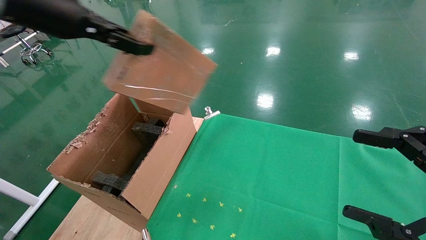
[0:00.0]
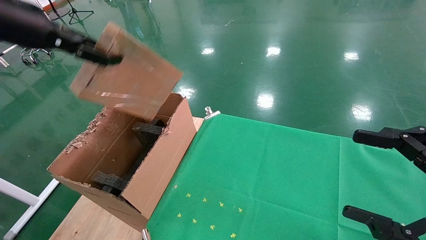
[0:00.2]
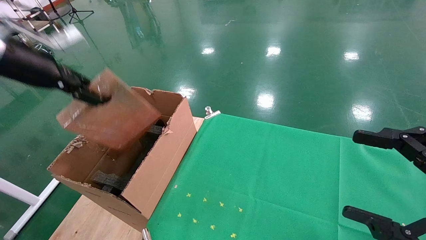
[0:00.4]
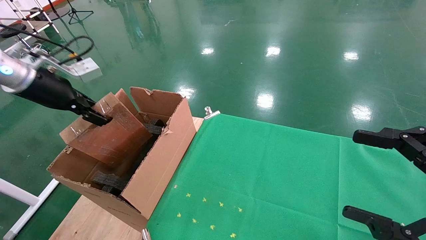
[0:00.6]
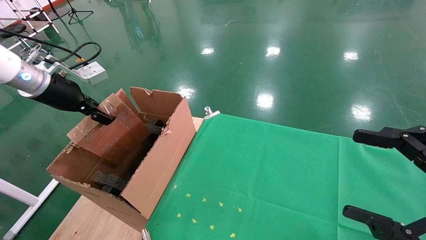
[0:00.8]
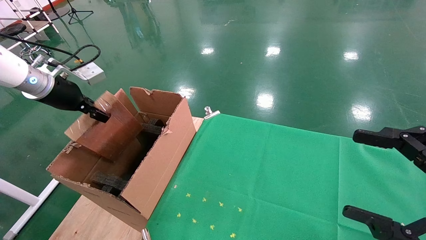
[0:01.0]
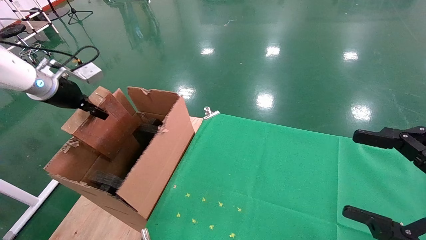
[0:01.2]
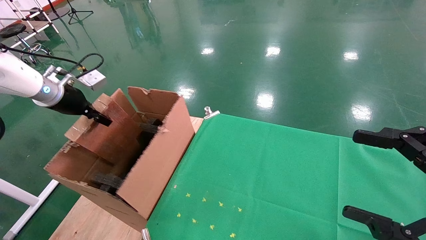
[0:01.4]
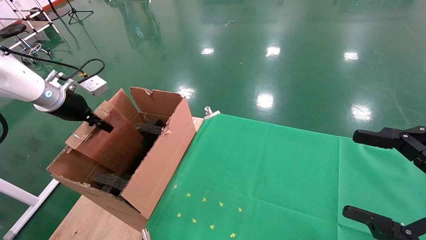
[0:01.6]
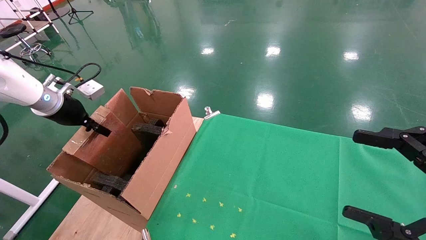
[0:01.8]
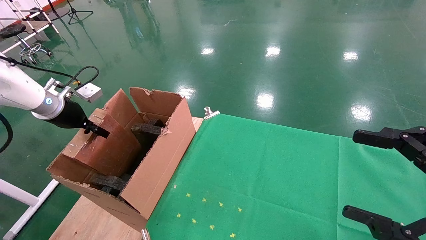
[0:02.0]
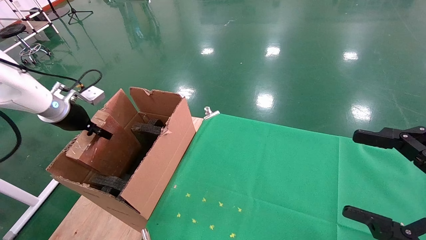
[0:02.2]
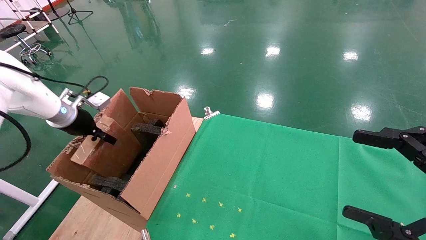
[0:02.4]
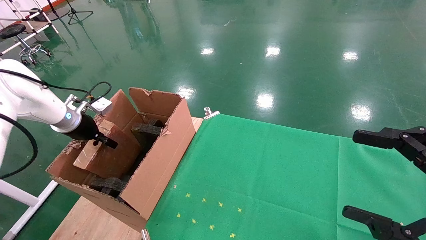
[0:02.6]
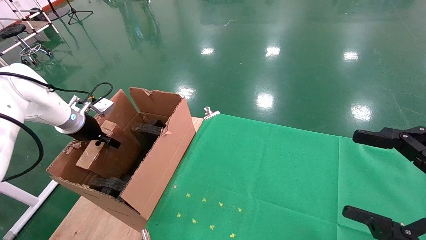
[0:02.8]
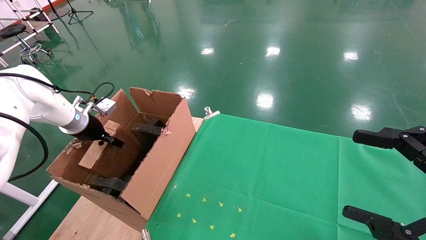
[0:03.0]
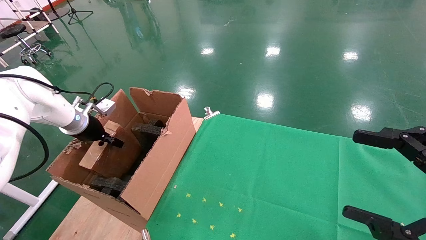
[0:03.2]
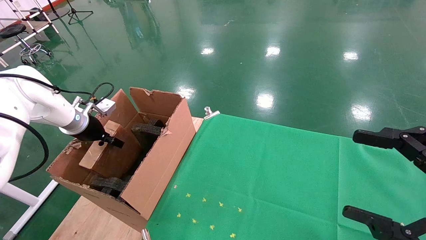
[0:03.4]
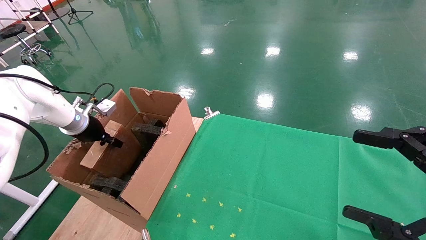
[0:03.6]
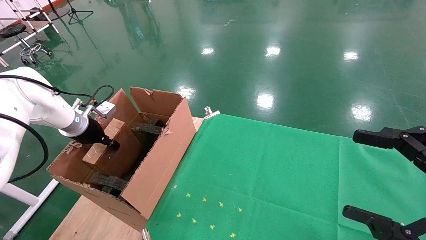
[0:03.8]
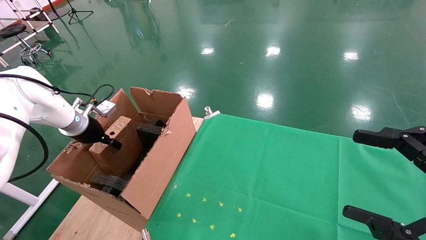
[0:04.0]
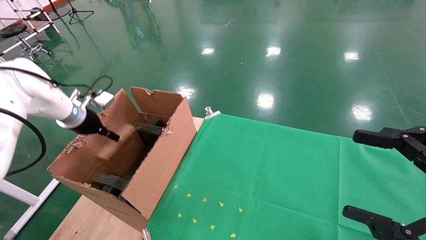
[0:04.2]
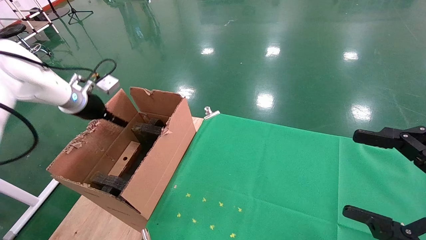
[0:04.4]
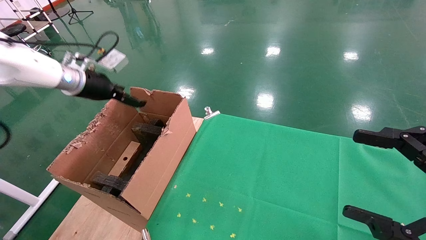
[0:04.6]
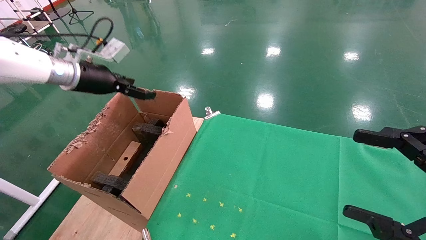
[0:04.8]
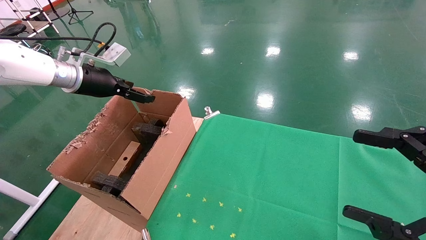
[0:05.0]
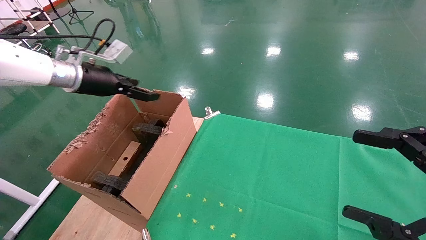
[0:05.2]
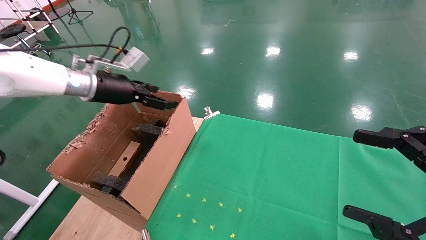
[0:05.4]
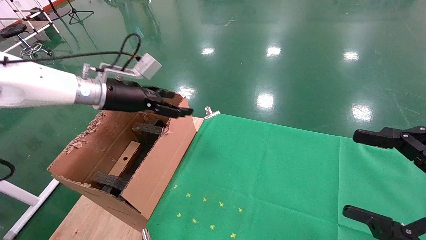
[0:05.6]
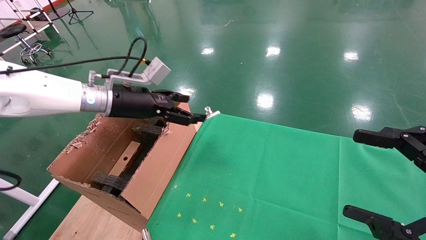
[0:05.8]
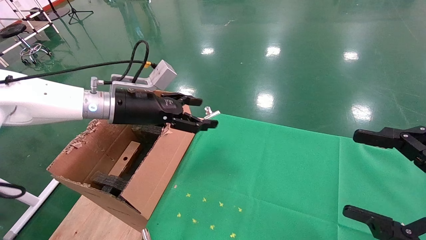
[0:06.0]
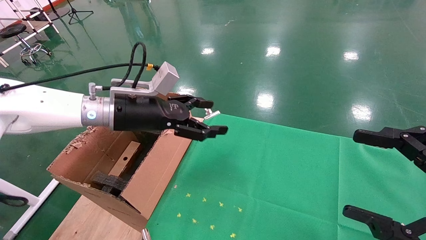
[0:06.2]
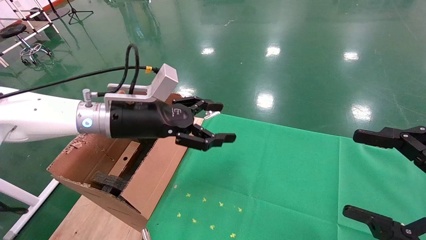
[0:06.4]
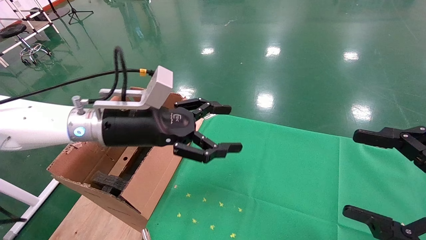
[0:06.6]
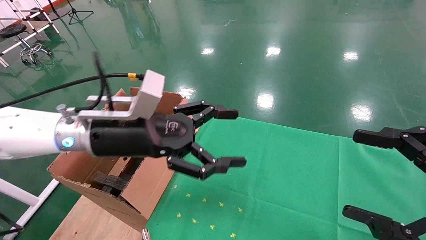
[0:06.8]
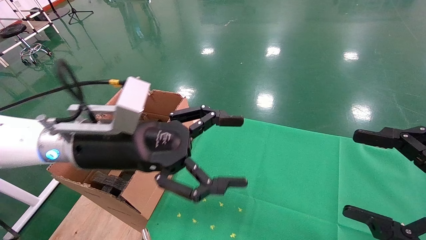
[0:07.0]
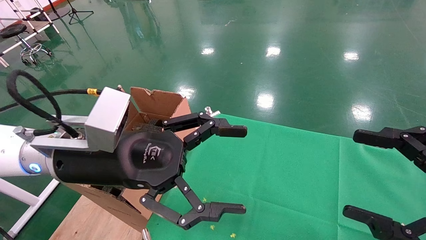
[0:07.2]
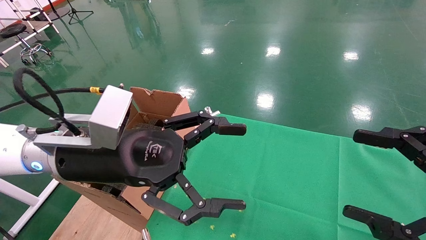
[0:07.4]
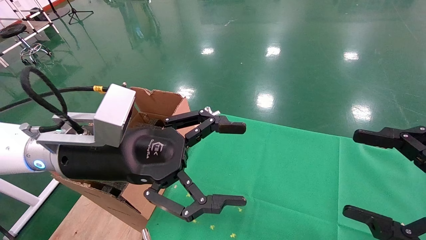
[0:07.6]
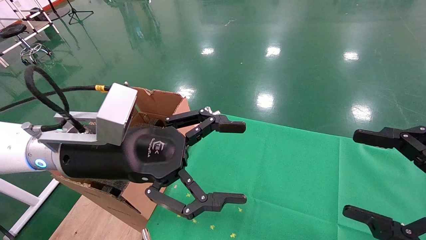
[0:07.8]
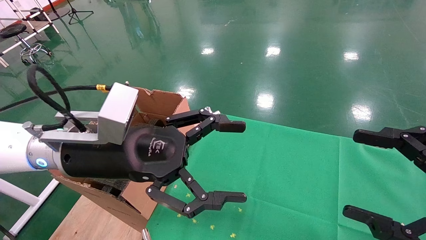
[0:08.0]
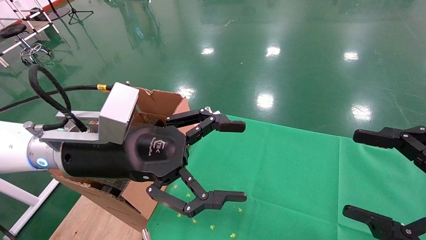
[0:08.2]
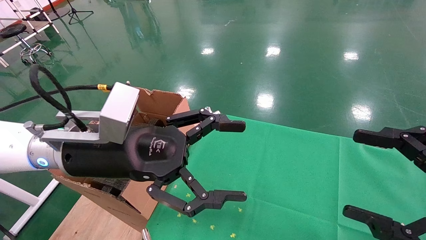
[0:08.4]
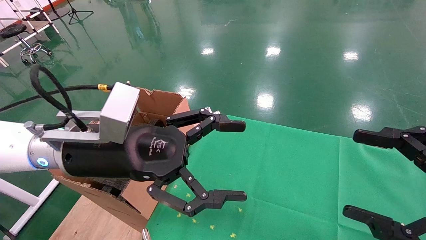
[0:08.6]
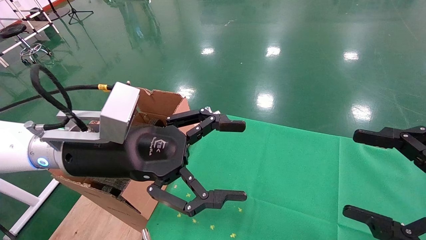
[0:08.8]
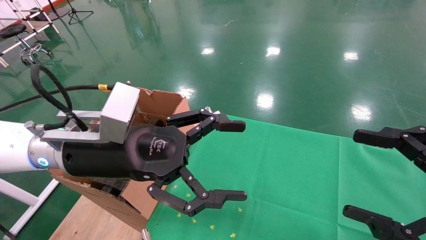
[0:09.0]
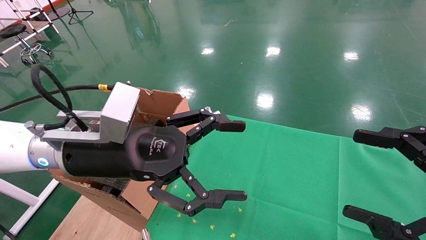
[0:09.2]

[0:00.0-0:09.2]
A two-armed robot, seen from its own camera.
Task of the whole recording: using a robotic arm to pick up a cardboard box and palace it the carton.
Step, 0:00.0 to 0:04.6: Place the mouse and the power cord paper box into the container.
0:00.0 to 0:01.6: The left gripper shifts about 25 cm downward, to the left and forward.
0:01.6 to 0:03.0: The left gripper travels downward by some 10 cm.
0:03.0 to 0:04.6: The left gripper heads upward, covering some 10 cm, and opens up.
0:04.6 to 0:06.2: The left gripper moves to the right, roughly 15 cm.
0:06.2 to 0:07.6: The left gripper goes about 15 cm backward.
0:07.6 to 0:09.2: Both grippers stay about where they are.
